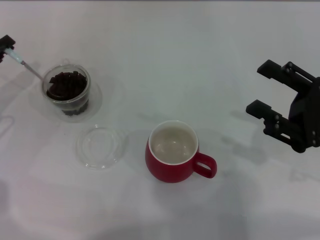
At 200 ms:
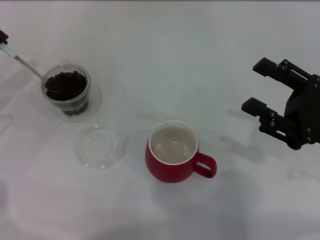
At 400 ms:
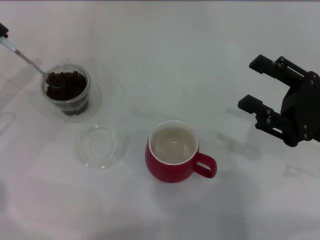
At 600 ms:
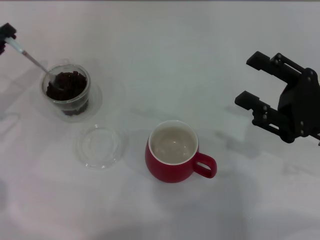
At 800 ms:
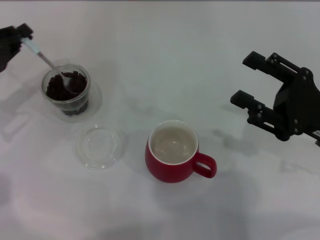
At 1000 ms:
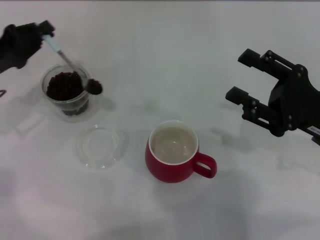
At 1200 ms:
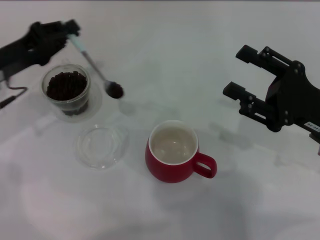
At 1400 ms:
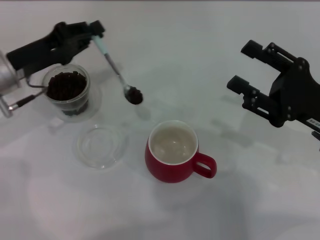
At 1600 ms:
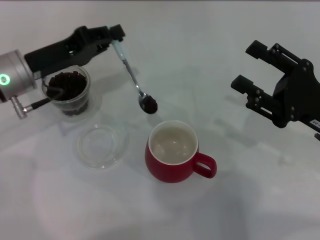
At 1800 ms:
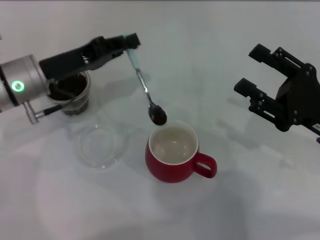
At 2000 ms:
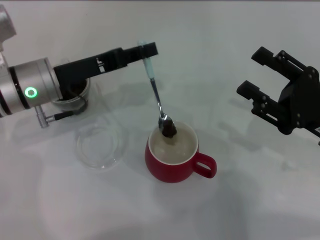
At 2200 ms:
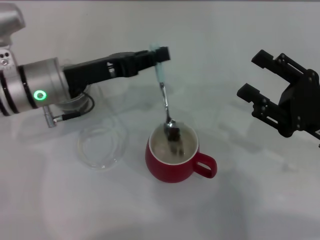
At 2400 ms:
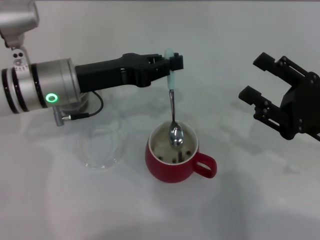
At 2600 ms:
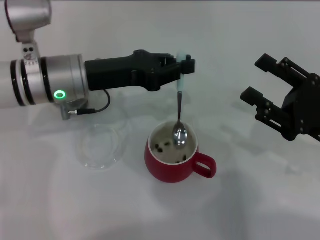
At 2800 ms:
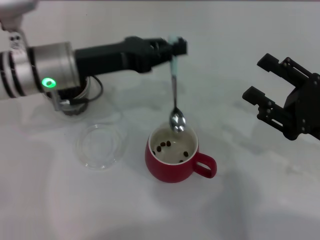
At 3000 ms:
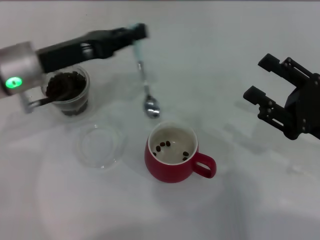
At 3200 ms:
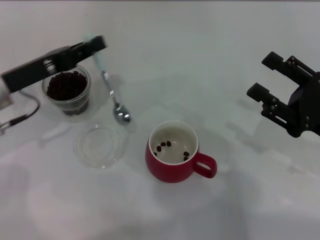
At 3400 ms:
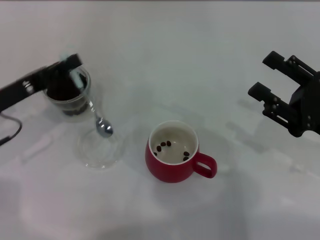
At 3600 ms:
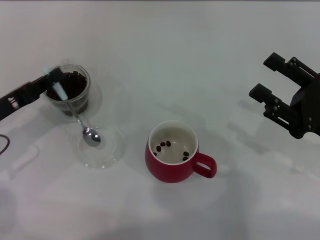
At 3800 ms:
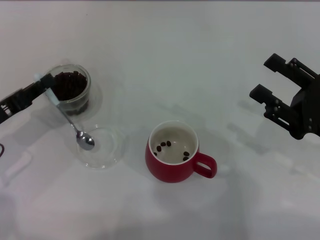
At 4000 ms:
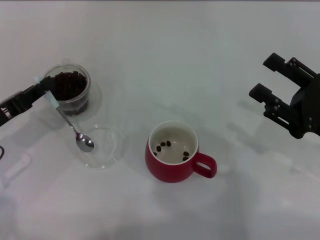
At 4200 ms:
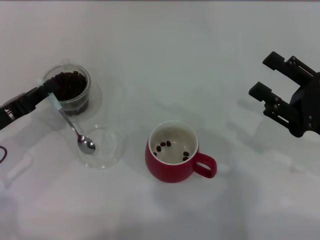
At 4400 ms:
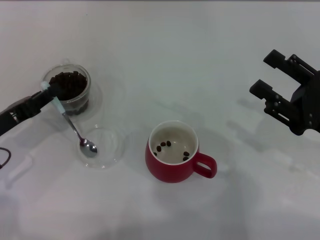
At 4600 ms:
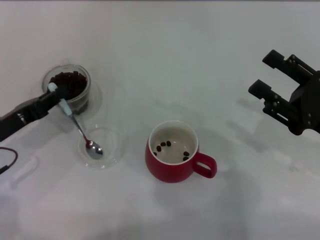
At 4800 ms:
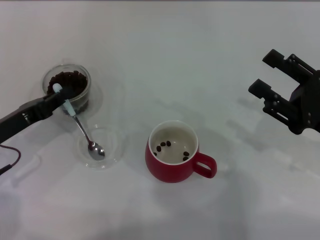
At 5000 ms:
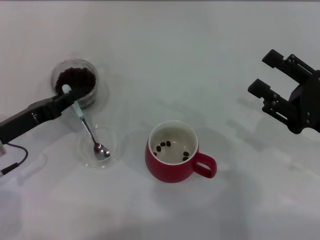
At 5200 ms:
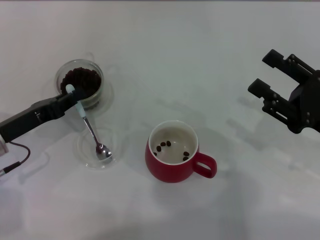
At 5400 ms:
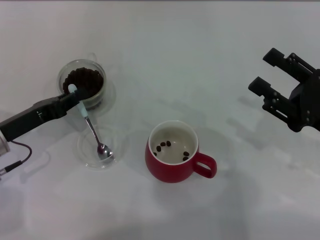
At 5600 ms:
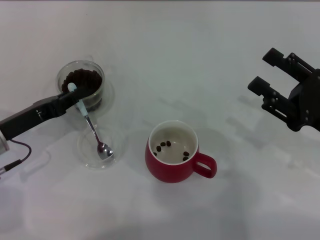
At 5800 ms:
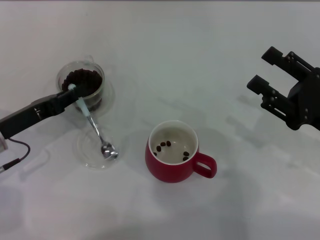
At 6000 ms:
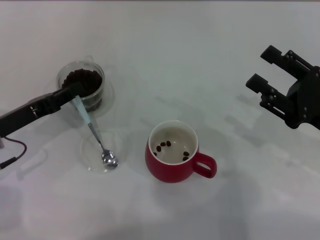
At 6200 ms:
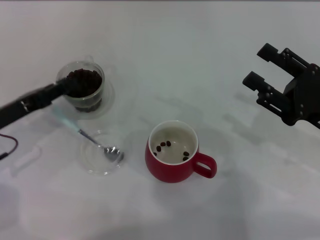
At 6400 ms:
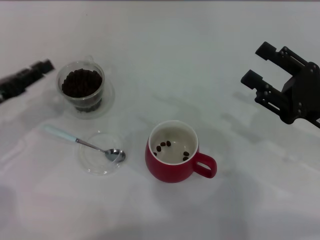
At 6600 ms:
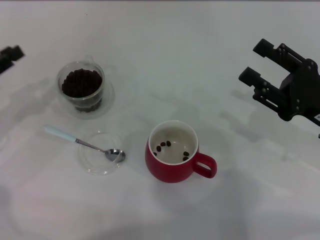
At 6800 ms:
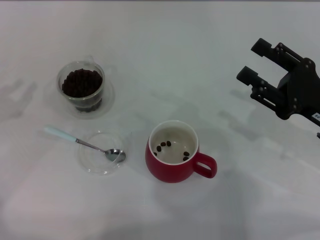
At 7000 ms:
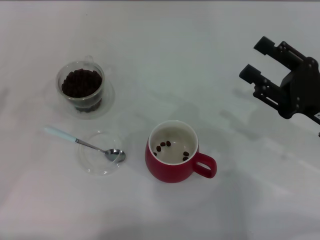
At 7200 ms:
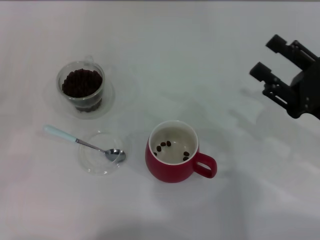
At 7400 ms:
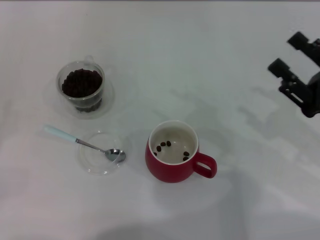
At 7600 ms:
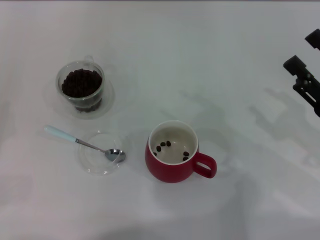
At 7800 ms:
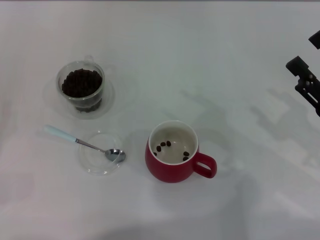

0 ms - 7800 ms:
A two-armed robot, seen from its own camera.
Task of the whole recording: Use a blue spoon to take out the coffee beans from the glass and pour them into the red cup.
Step, 0 ms - 2600 ms: Scoop a spoonful of beans into the cup with the right gripper.
0 ms - 1600 ms: The left gripper travels to the right by approximately 10 cm.
1600 ms - 3200 ms: The left gripper moves roughly 5 cm to the right and comes back.
3200 ms - 4600 ms: The left gripper moves backward and downward, approximately 10 cm.
4600 ms - 6200 ms: The grippers move only a little.
6200 ms - 7800 ms: The left gripper moves to the left and backward, some 15 cm.
